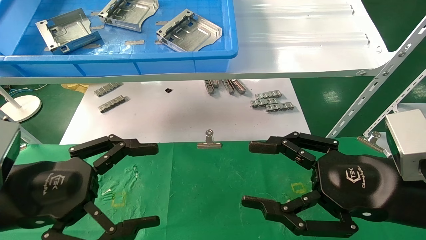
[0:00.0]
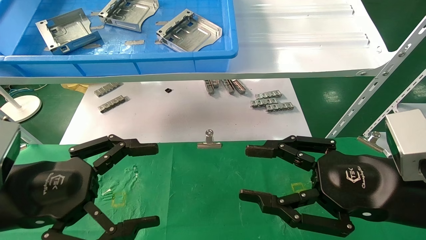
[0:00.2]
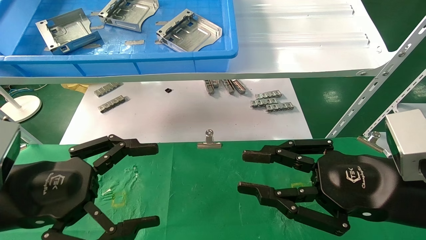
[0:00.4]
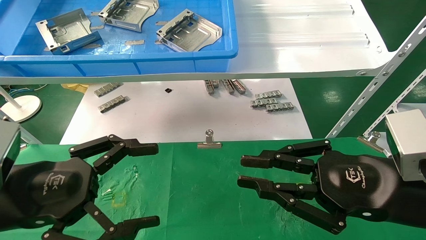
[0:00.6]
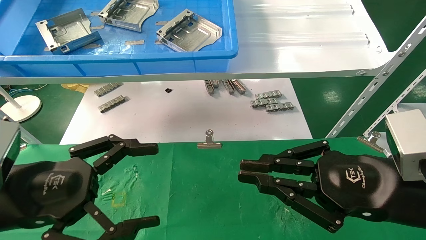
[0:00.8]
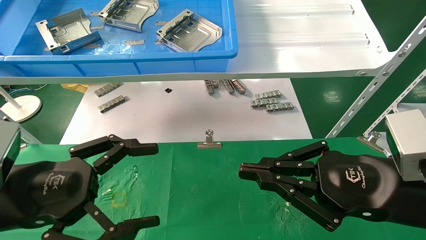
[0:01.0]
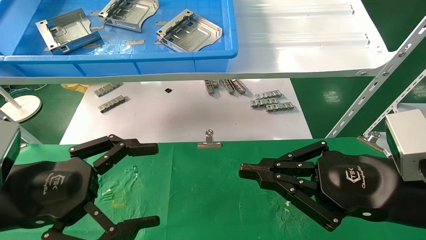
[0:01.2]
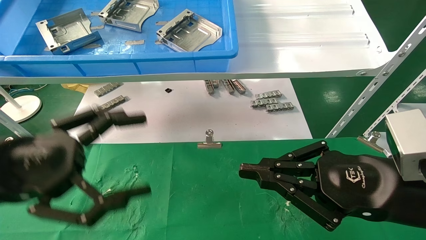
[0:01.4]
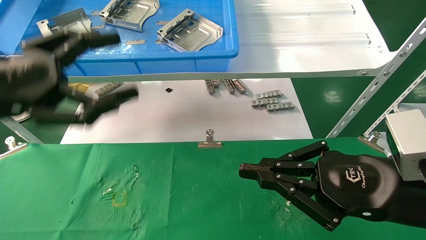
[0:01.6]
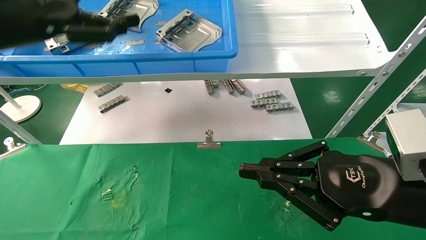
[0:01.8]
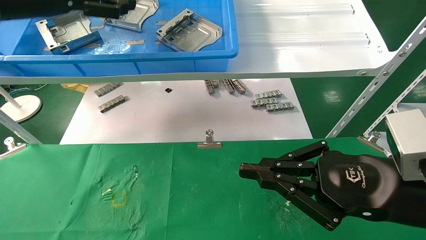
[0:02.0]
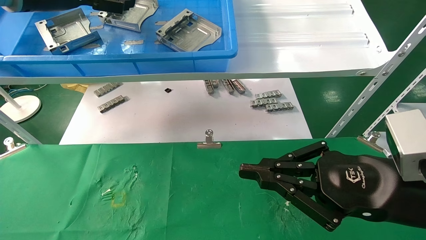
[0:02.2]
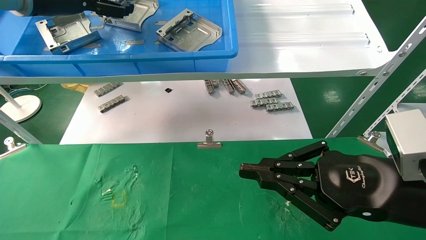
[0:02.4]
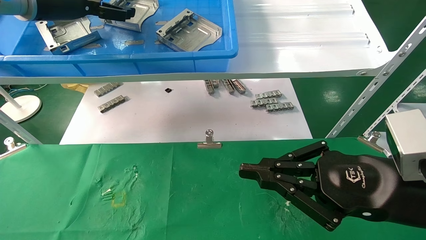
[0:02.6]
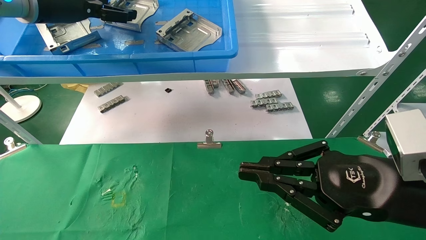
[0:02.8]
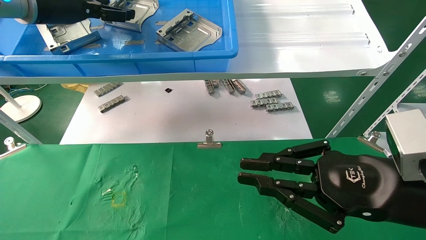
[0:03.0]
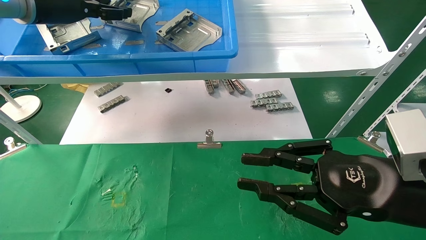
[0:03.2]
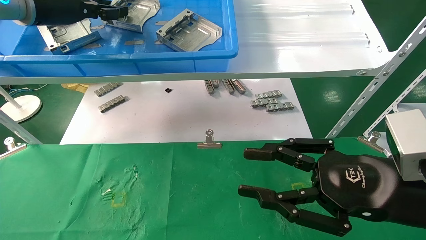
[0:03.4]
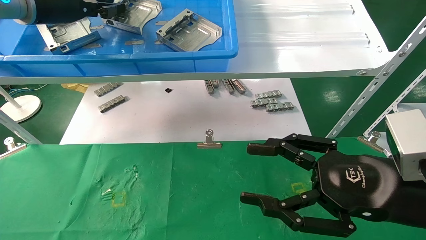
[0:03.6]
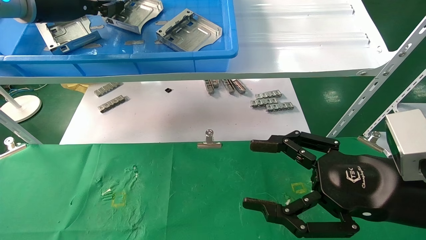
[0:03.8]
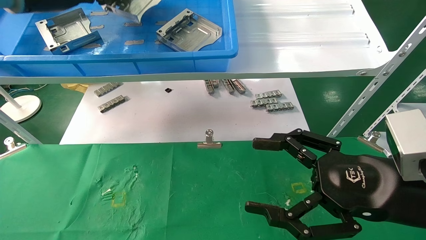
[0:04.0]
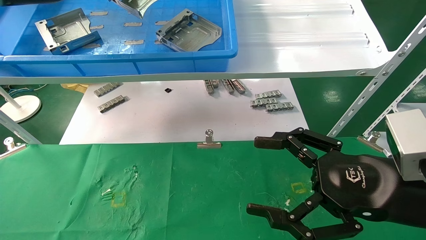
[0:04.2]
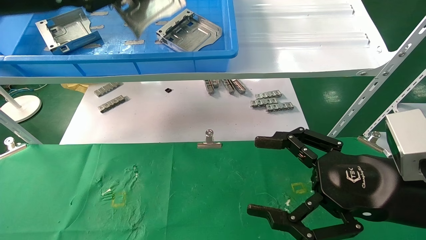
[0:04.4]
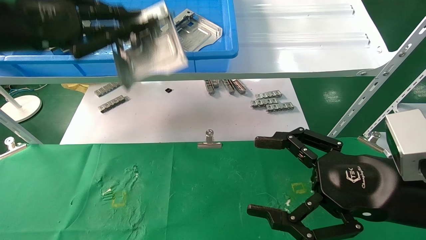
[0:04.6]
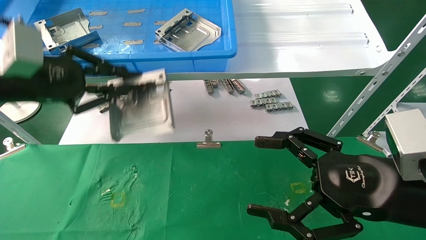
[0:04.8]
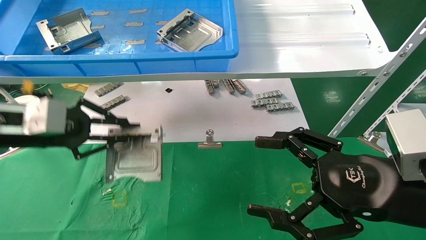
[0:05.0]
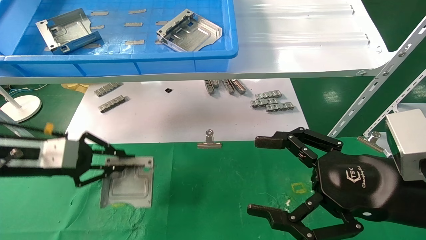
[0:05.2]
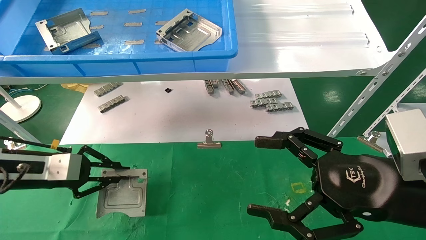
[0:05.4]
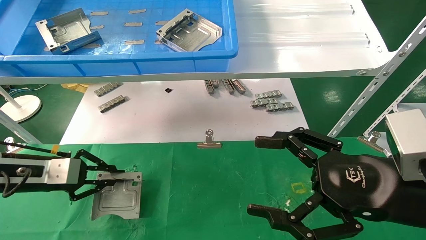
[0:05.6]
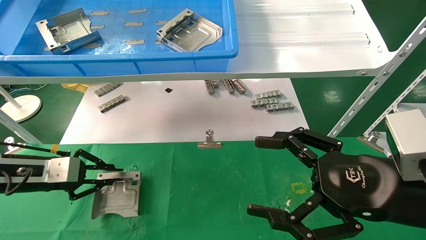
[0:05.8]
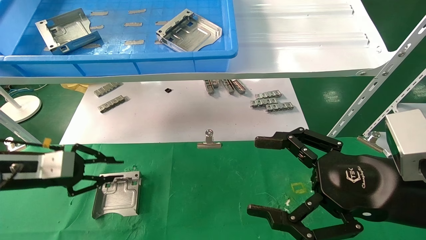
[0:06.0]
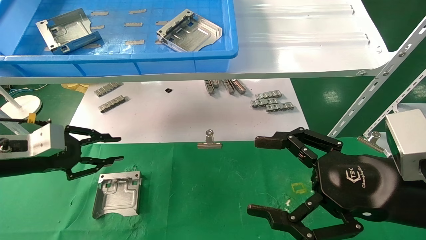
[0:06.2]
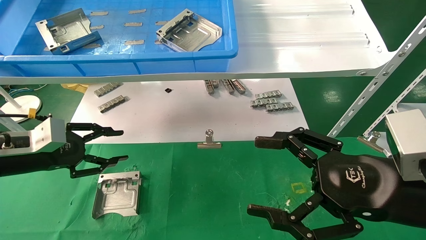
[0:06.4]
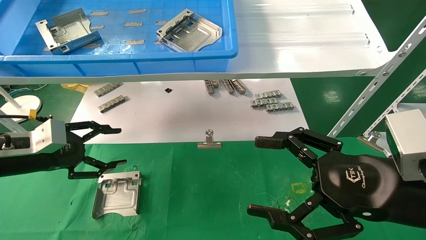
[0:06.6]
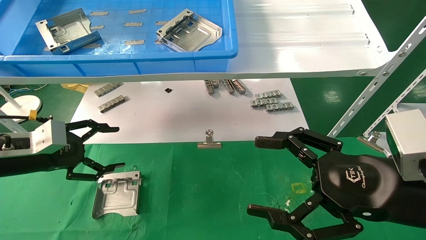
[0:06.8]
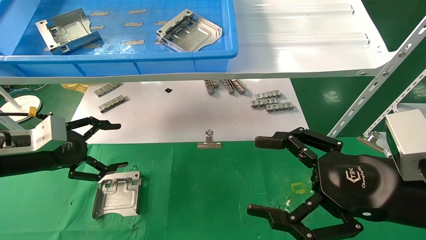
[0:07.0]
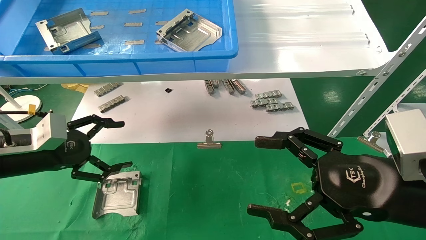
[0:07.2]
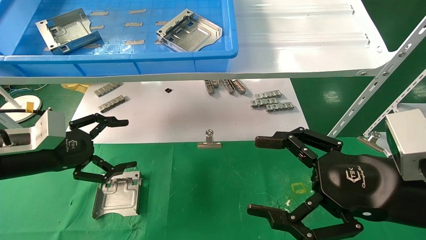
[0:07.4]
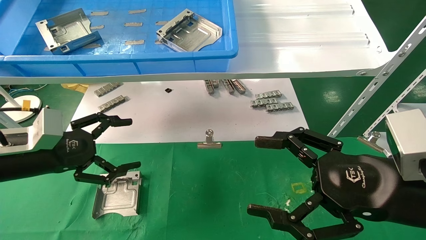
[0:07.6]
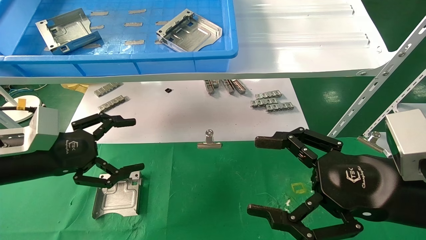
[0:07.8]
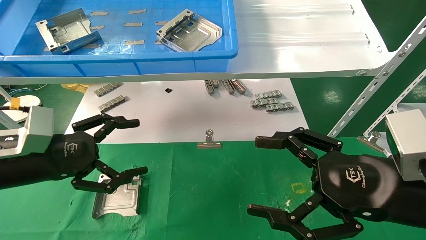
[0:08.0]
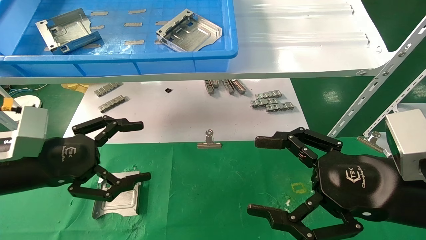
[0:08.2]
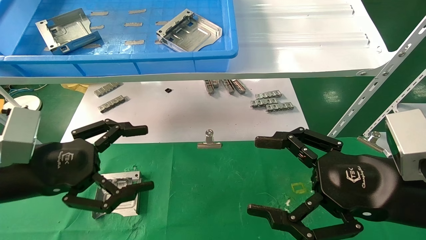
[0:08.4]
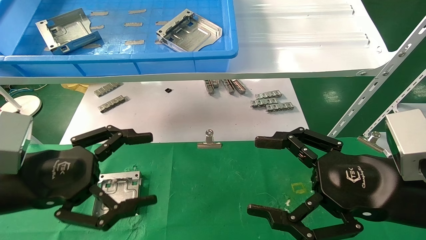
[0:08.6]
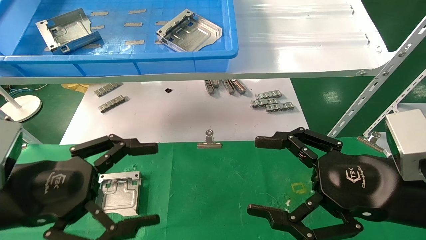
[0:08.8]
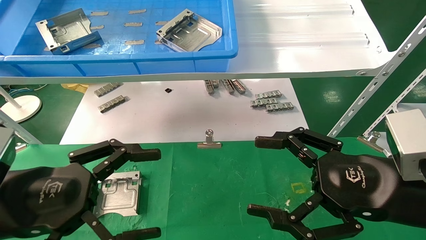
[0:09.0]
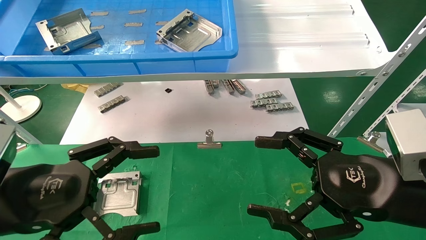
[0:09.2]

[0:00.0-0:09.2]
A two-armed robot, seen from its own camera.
Task of the whole recording: use the mechanical arm to pick up the parts and place them on the table.
Step, 0:01.6 to 0:03.6: Pick up the hard drive bracket from the feeding area.
Step, 0:03.8 to 0:06.2: Place the hard drive bracket into the box.
0:00.0 to 0:01.6: The left gripper shifts some 10 cm upward and forward; the right gripper closes its fingers.
0:01.6 to 0:03.0: The left gripper travels forward and upward by approximately 20 cm.
0:03.0 to 0:04.6: The right gripper opens its fingers. The left gripper is displaced backward and downward by some 10 cm, and closes.
0:04.6 to 0:06.2: The left gripper shifts roughly 20 cm downward.
0:06.2 to 0:07.6: The left gripper shifts by approximately 5 cm, and opens its fingers.
0:07.6 to 0:09.2: The left gripper is displaced backward and to the right by about 15 cm.
